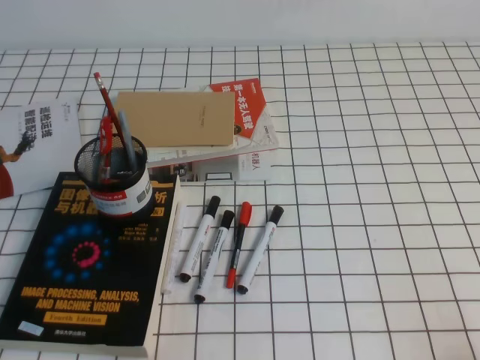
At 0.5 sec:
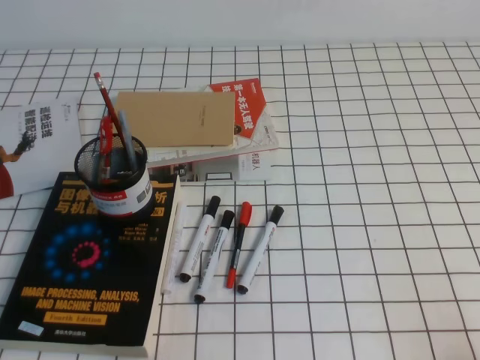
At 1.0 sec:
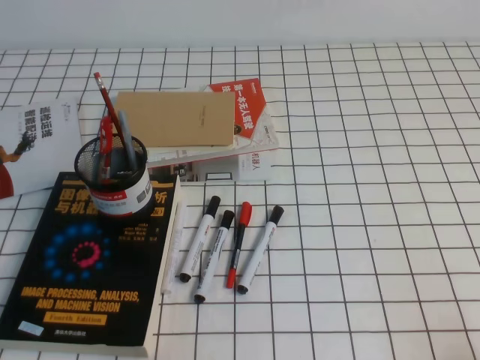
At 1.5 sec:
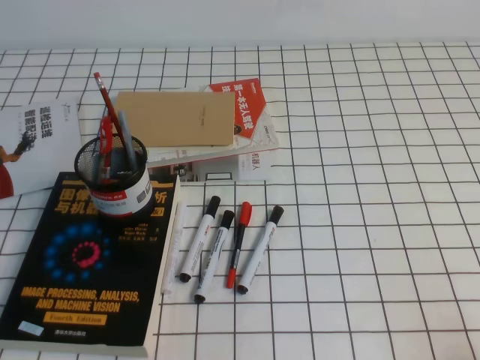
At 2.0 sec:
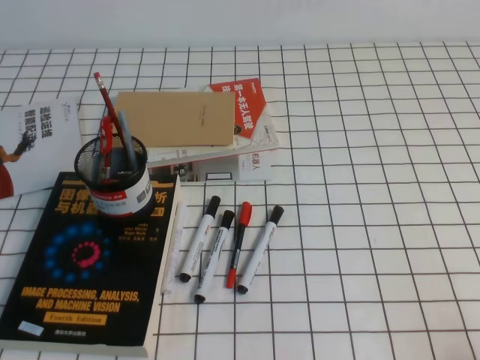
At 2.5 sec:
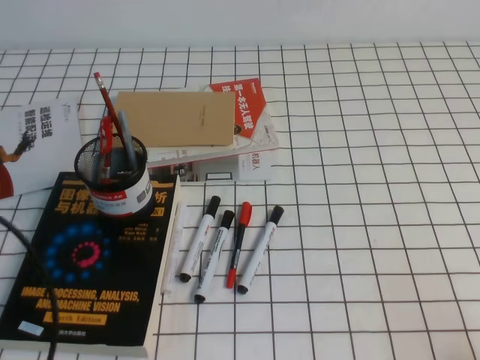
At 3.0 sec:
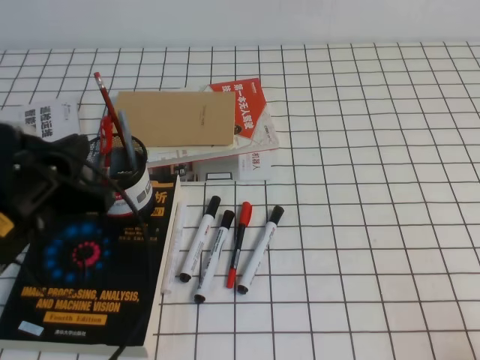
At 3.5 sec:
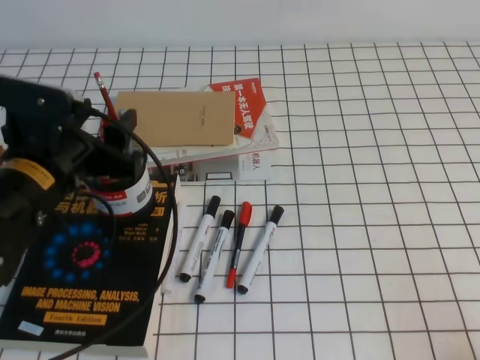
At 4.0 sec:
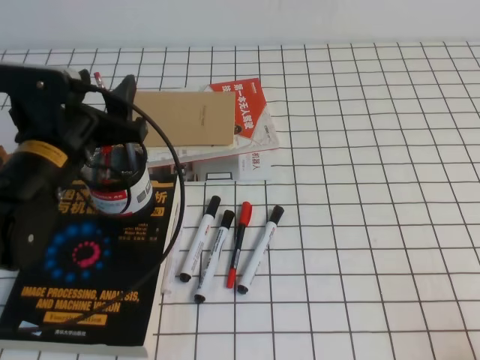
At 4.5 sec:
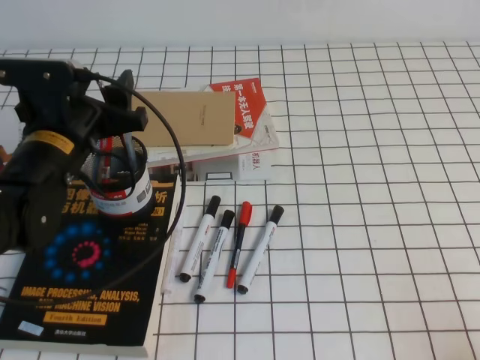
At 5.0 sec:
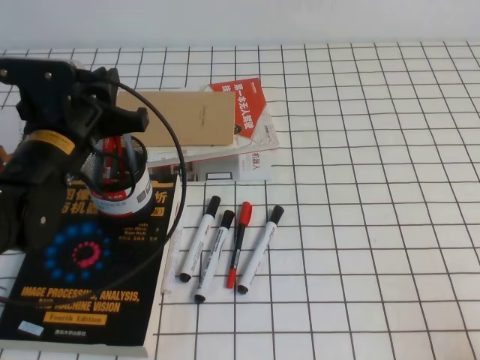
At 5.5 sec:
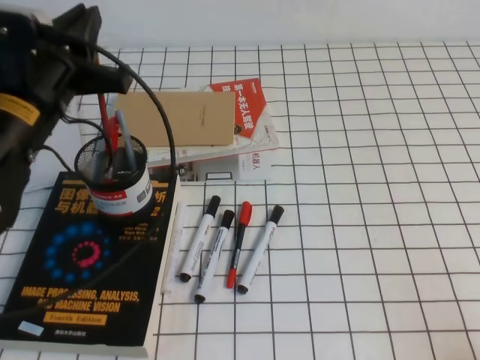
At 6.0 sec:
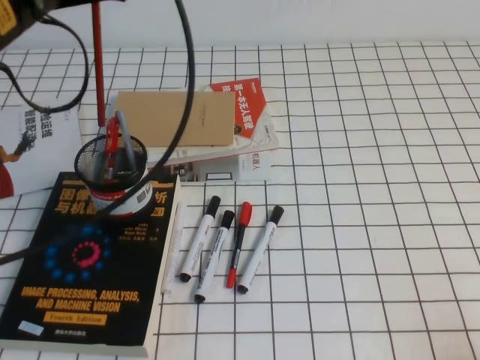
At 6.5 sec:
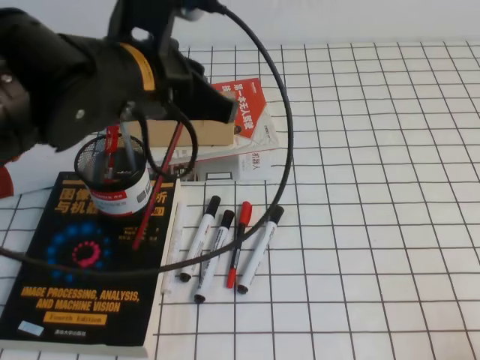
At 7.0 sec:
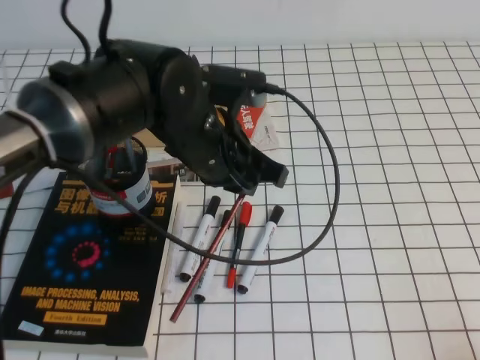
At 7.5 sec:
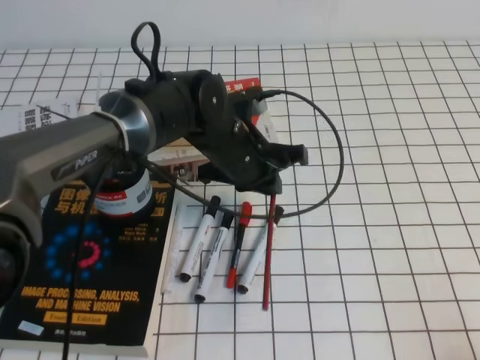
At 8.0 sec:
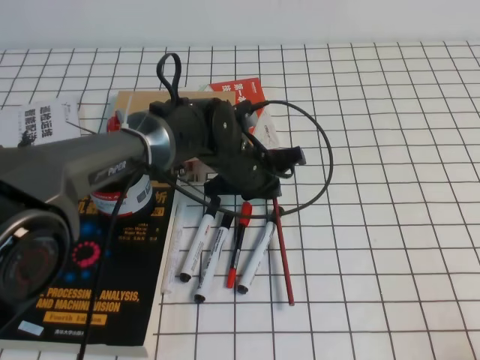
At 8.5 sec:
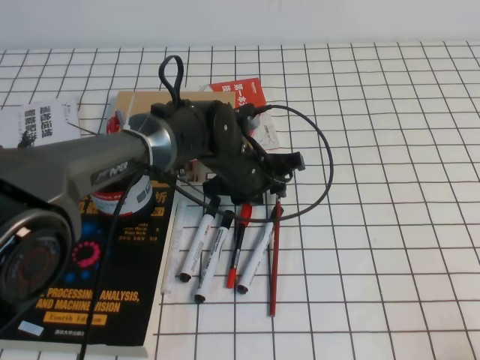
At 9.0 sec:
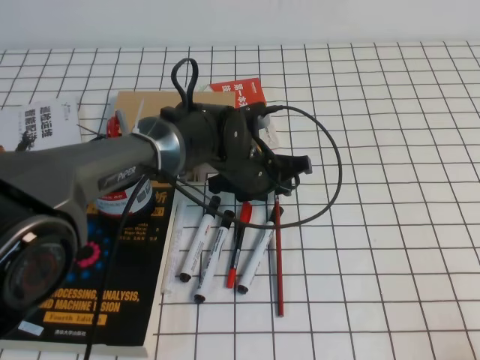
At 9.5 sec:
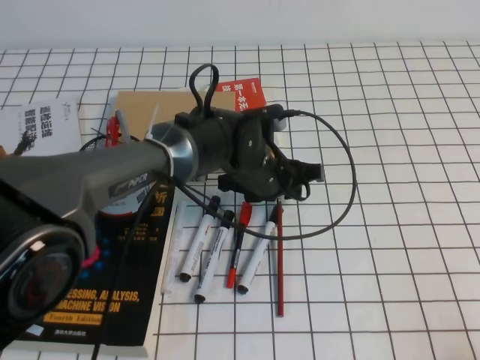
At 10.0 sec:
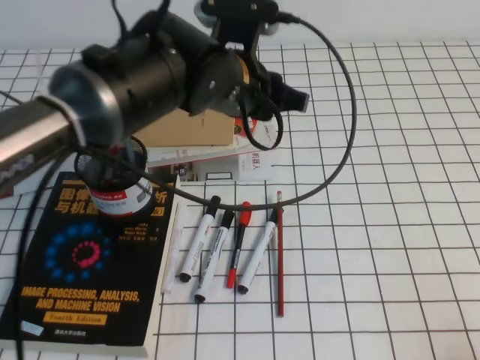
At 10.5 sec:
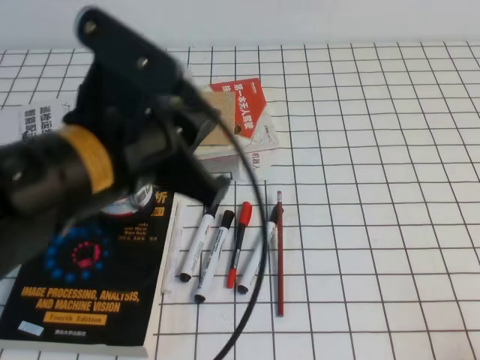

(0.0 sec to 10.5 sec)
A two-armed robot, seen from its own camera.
2.0 sec - 4.0 sec: The left gripper heads forward, covering approximately 25 cm, and opens.
4.0 sec - 6.5 sec: The left gripper heads upward and to the right, covering roughly 15 cm, and closes its fingers.
6.5 sec - 8.5 sec: The left gripper travels downward, forward and to the right by approximately 25 cm, and opens up.
8.5 sec - 10.5 sec: The left gripper travels upward, backward and to the left by about 25 cm, and closes up.

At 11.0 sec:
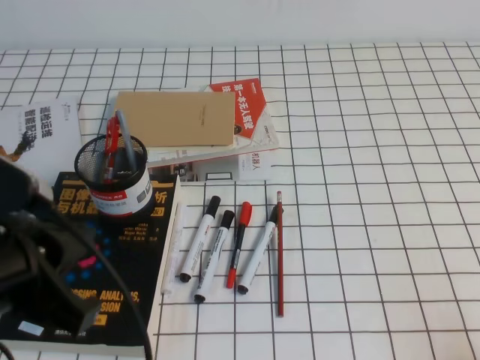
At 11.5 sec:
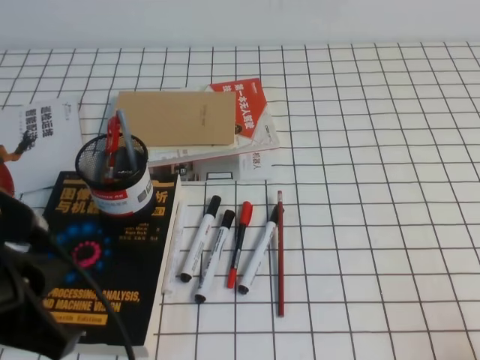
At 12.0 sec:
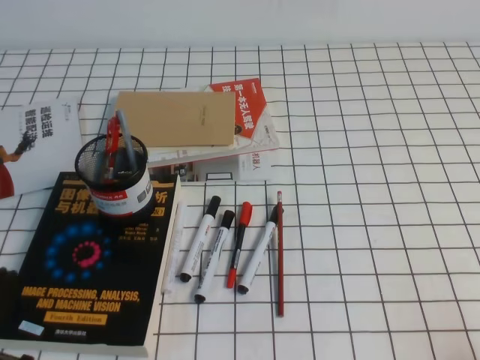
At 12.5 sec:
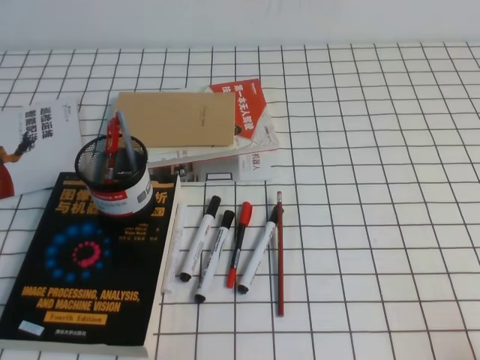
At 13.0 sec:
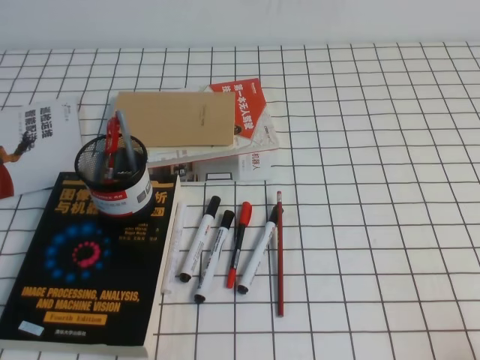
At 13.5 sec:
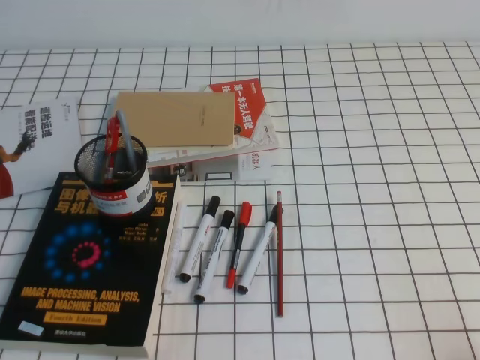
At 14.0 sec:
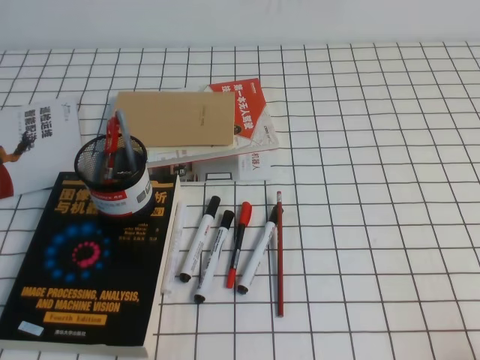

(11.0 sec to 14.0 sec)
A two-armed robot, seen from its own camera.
Step, 11.0 sec - 14.0 sec: Pick up the pen from the pen holder.
11.0 sec - 12.5 sec: The left gripper travels downward, to the left and backward by some 20 cm.
